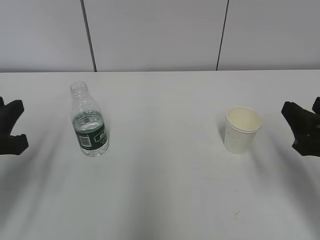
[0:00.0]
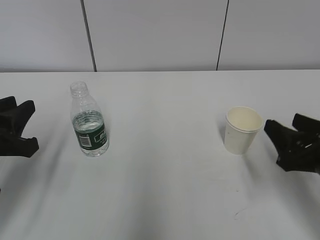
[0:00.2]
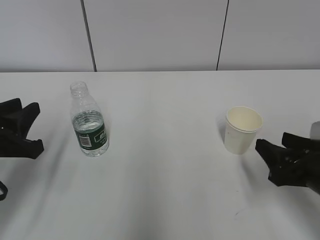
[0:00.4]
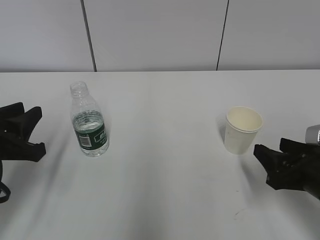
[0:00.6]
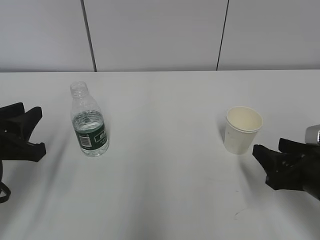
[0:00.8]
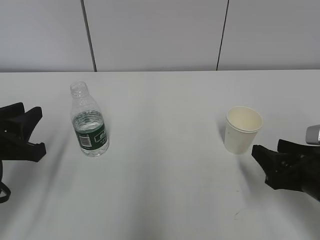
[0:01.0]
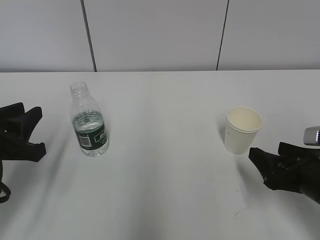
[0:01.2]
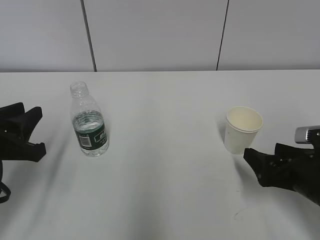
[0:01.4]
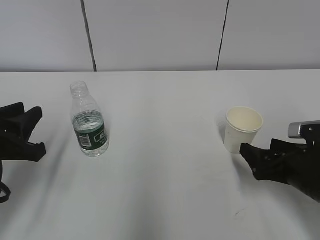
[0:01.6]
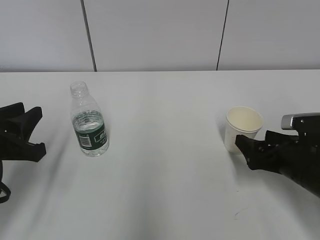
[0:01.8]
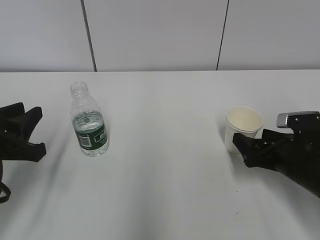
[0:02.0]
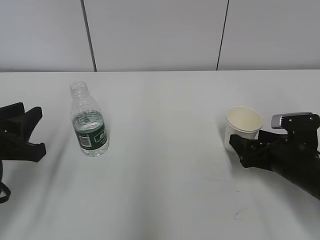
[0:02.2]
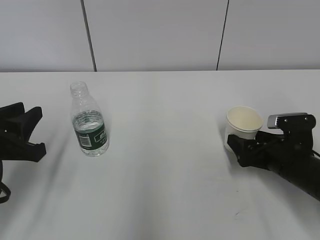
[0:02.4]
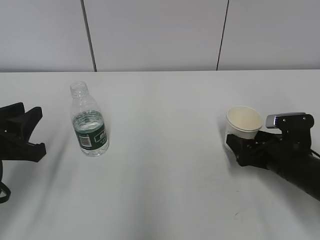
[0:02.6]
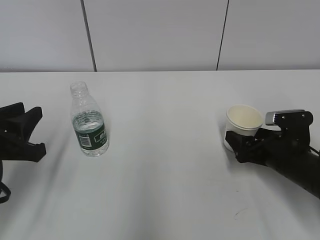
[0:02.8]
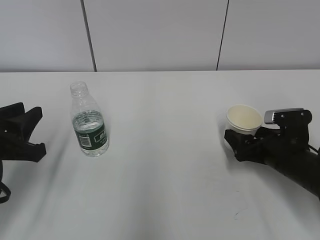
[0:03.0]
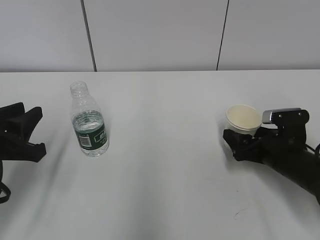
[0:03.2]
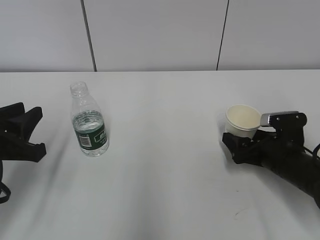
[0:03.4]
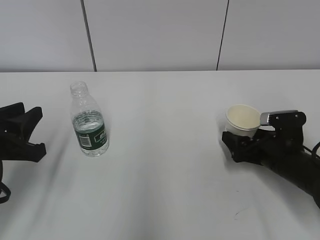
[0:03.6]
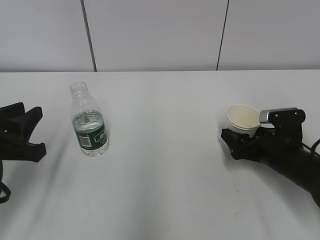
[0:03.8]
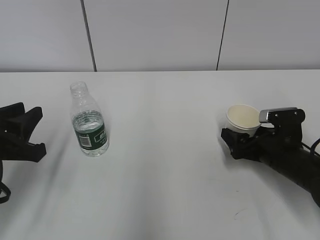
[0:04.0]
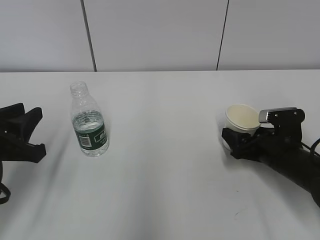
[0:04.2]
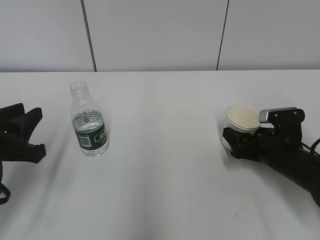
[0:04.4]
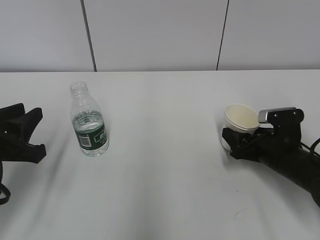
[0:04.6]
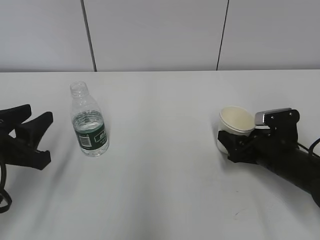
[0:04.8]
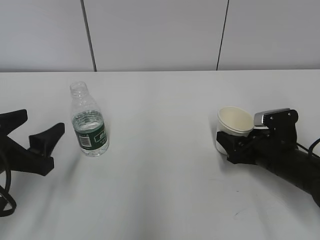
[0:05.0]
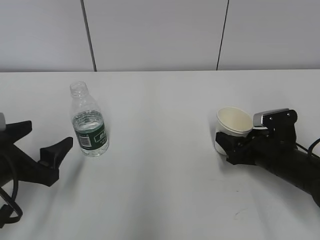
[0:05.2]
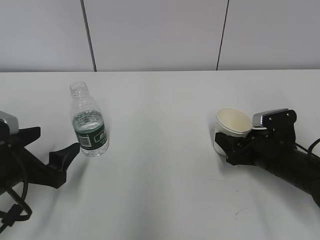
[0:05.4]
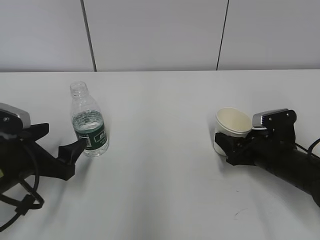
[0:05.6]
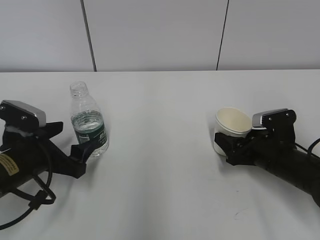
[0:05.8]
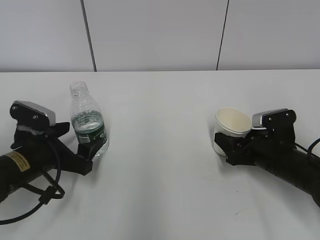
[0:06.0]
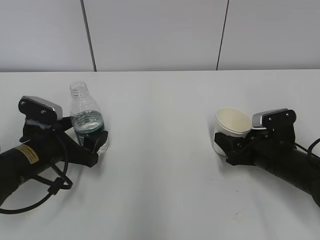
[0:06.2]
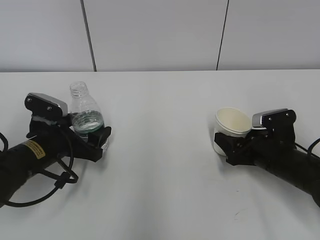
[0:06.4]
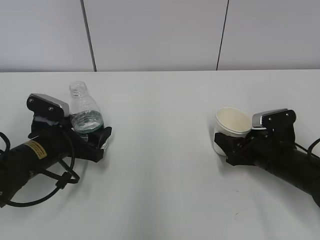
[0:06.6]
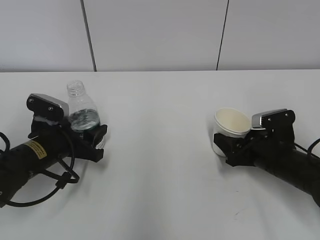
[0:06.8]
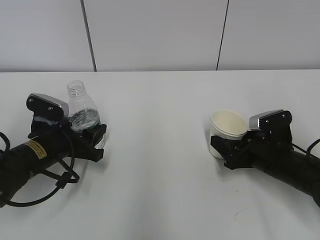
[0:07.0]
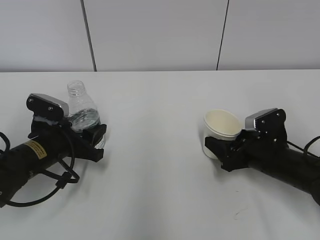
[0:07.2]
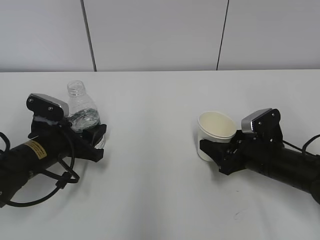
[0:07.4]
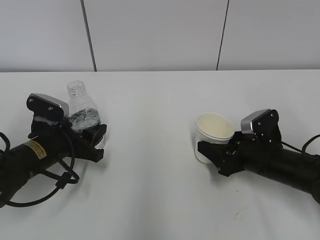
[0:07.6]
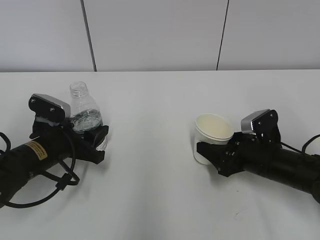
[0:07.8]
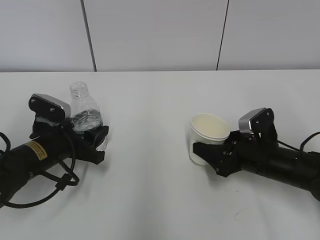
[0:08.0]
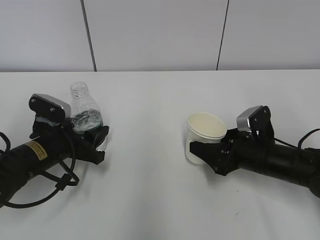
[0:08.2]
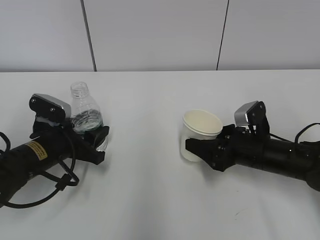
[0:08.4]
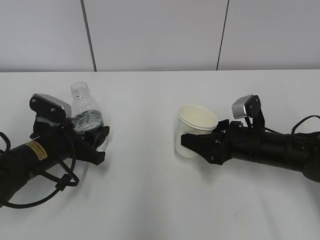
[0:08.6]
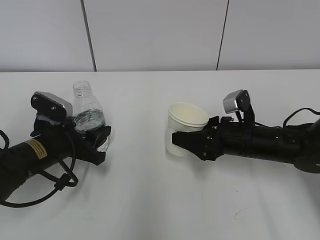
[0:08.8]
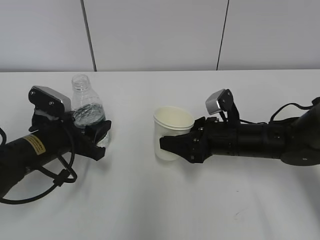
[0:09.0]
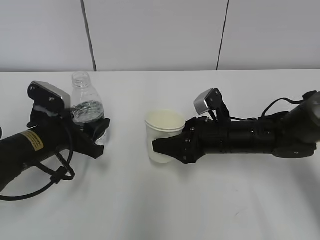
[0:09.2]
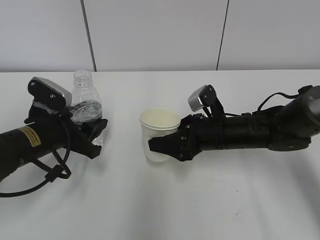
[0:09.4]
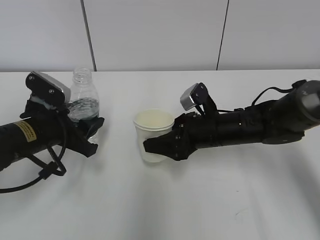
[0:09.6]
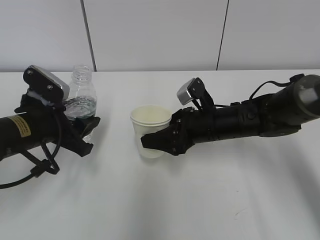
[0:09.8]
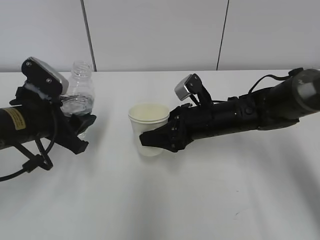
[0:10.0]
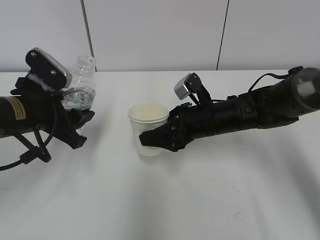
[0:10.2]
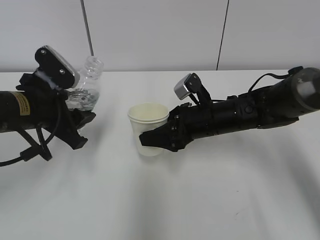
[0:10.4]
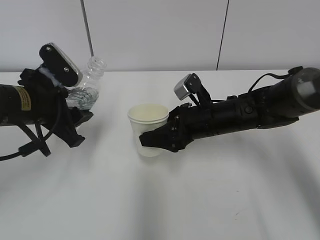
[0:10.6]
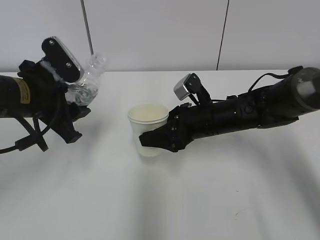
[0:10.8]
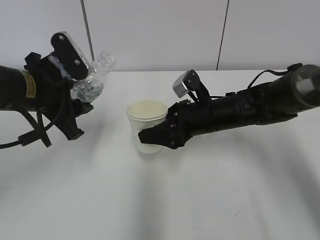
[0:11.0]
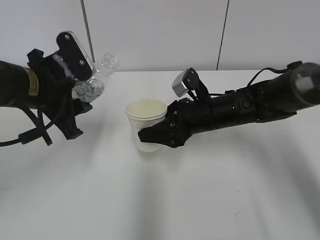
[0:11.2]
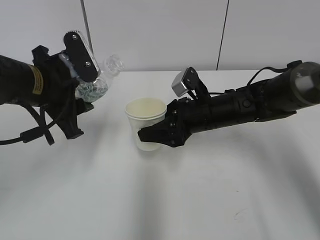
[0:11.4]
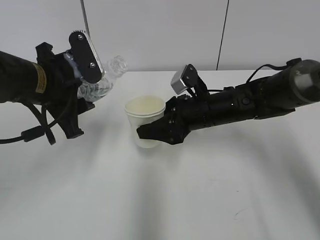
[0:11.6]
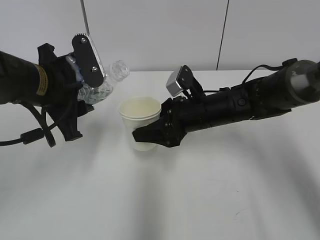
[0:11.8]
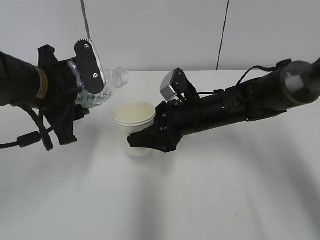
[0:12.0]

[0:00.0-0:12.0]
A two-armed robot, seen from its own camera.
Step, 0:00.0 to 0:05.2: Grab the paper cup with the right hand.
Step, 0:05.4 to 0:06.6: Grab the water bottle with the left hand.
Step, 0:06.8 to 0:10.4: Lift the paper cup with the right hand.
0:00.0 to 0:01.6: The right gripper travels downward by roughly 10 cm, and opens up.
0:01.6 to 0:03.0: The right gripper heads forward, covering approximately 5 cm.
0:03.0 to 0:04.4: The right gripper closes up.
0:04.4 to 0:06.0: The left gripper is displaced downward and forward by roughly 10 cm, and opens.
0:06.0 to 0:07.6: The left gripper closes up.
0:07.6 to 0:09.0: The right gripper is displaced to the left by about 5 cm.
0:09.0 to 0:10.4: The right gripper shifts by roughly 5 cm. Meanwhile the left gripper goes roughly 10 cm upward.
0:10.4 to 0:12.0: The left gripper ends up roughly 5 cm from where it was.

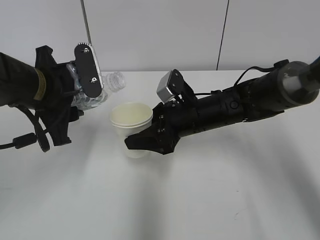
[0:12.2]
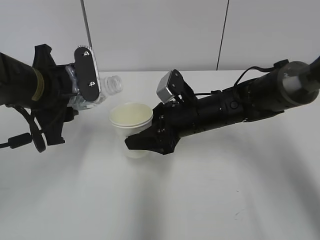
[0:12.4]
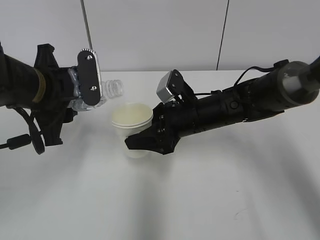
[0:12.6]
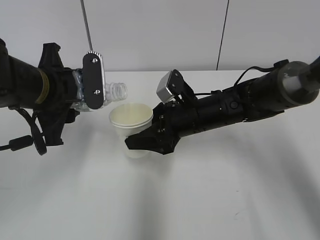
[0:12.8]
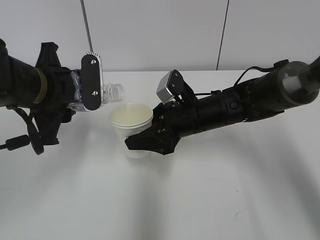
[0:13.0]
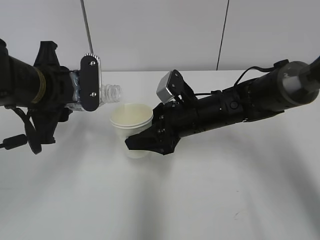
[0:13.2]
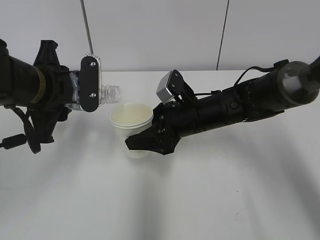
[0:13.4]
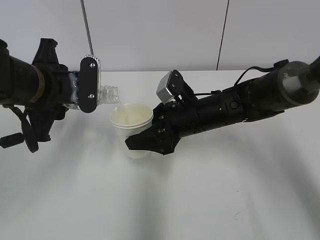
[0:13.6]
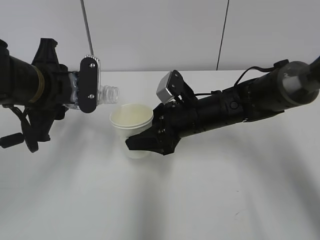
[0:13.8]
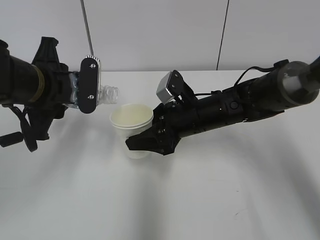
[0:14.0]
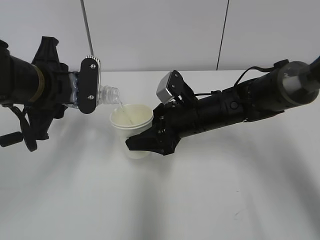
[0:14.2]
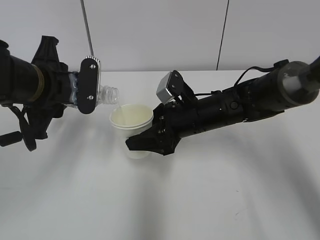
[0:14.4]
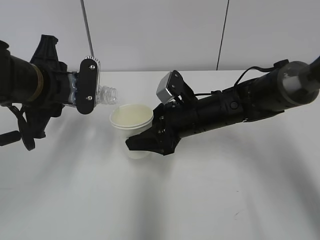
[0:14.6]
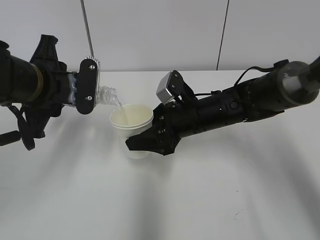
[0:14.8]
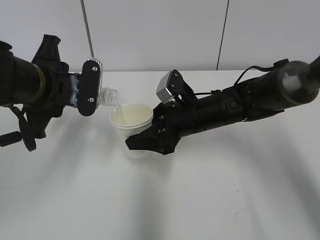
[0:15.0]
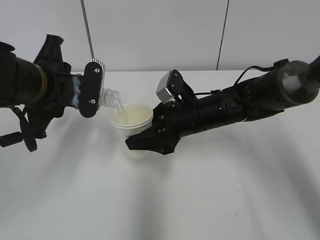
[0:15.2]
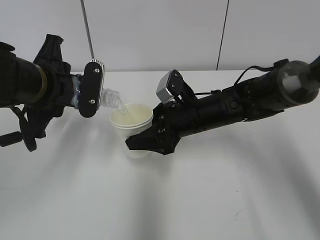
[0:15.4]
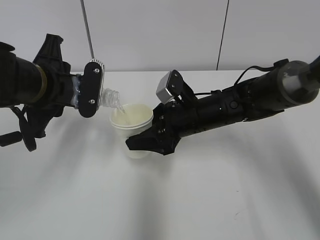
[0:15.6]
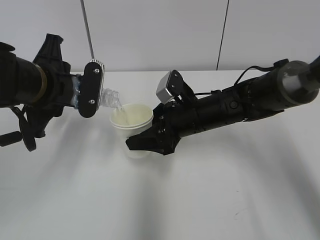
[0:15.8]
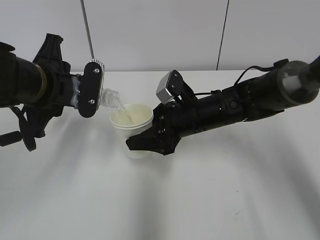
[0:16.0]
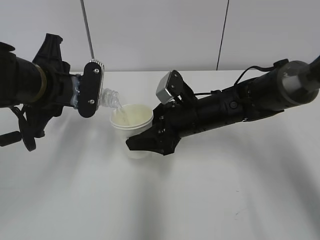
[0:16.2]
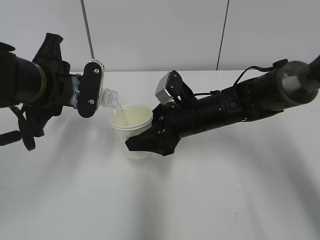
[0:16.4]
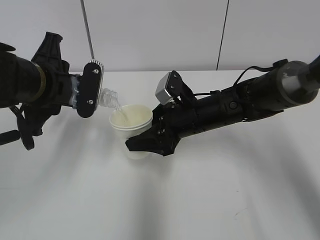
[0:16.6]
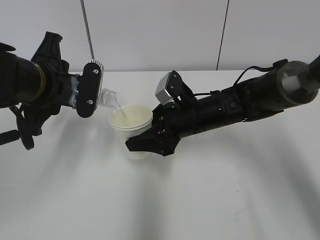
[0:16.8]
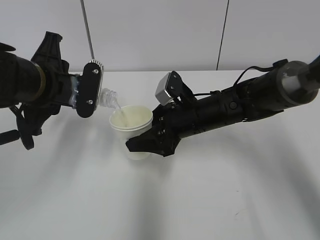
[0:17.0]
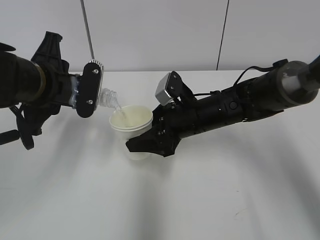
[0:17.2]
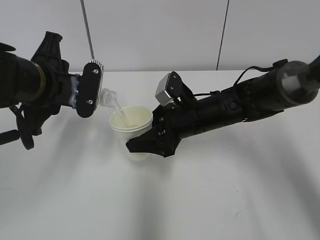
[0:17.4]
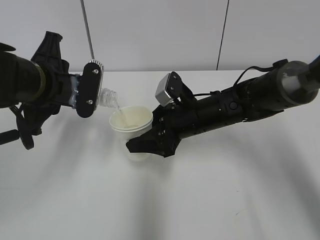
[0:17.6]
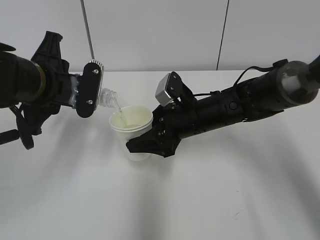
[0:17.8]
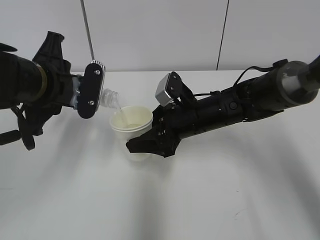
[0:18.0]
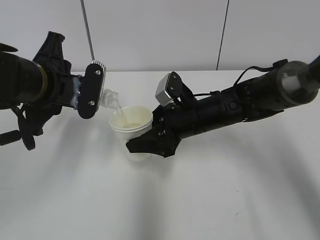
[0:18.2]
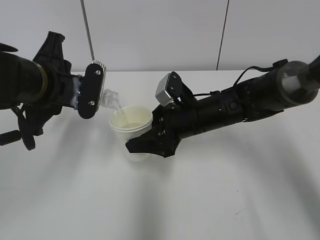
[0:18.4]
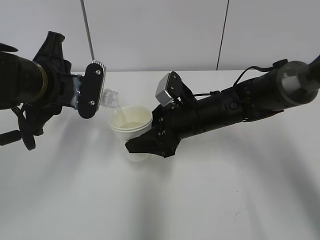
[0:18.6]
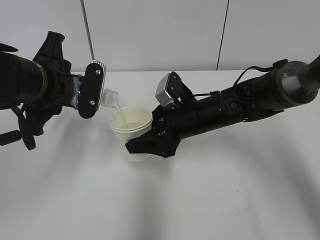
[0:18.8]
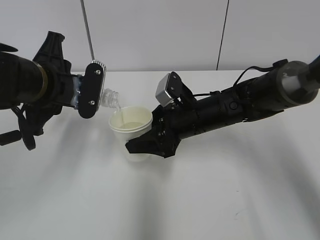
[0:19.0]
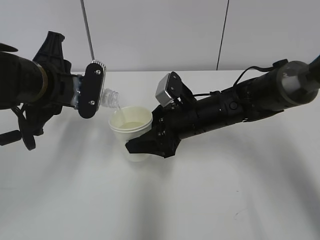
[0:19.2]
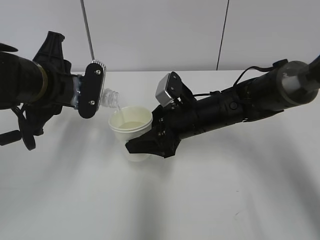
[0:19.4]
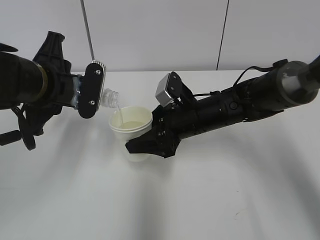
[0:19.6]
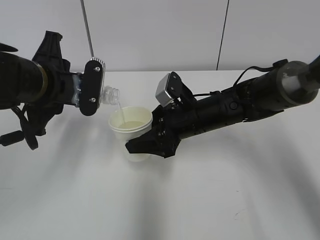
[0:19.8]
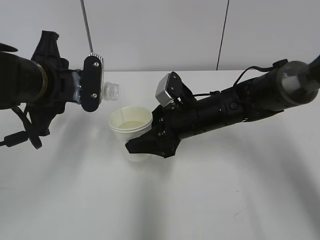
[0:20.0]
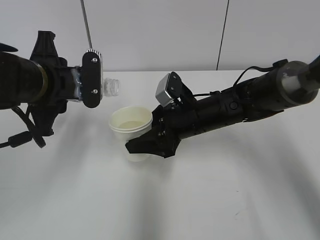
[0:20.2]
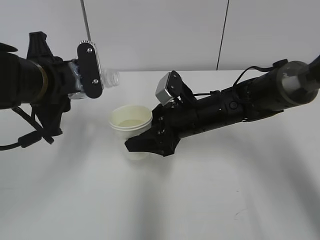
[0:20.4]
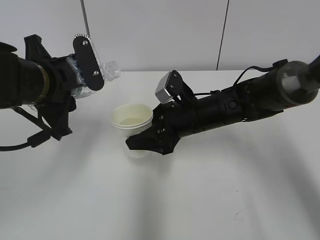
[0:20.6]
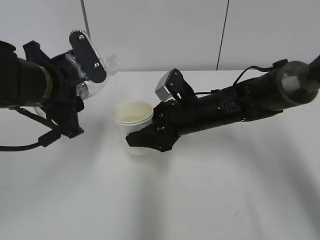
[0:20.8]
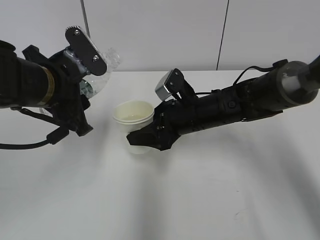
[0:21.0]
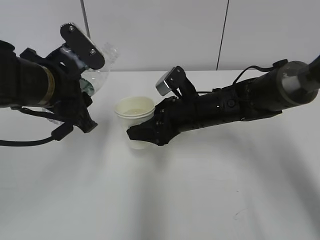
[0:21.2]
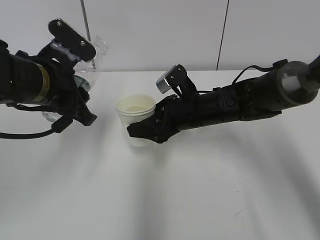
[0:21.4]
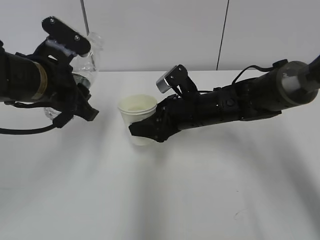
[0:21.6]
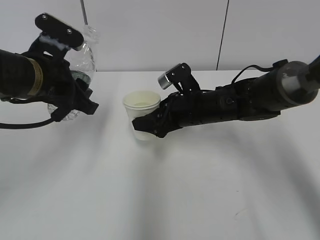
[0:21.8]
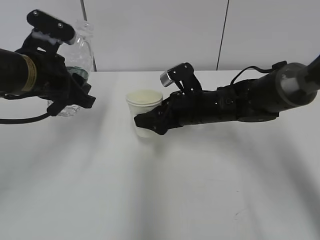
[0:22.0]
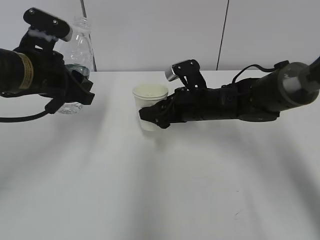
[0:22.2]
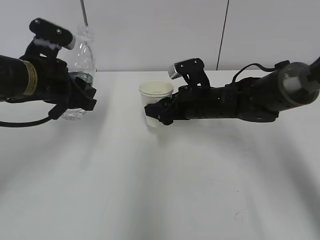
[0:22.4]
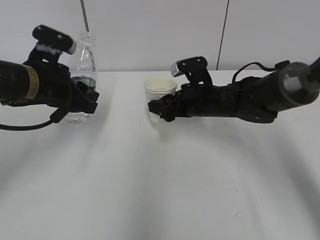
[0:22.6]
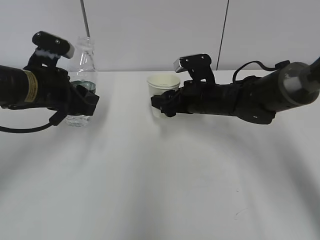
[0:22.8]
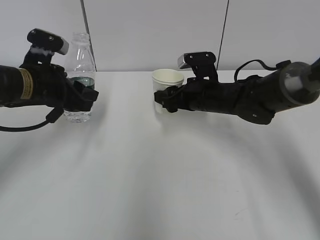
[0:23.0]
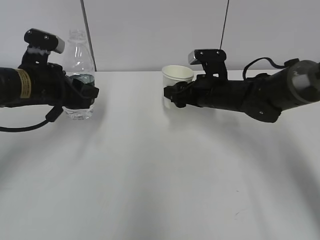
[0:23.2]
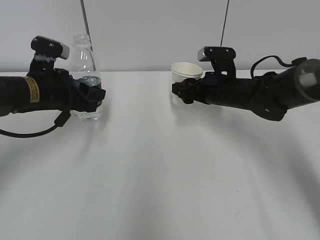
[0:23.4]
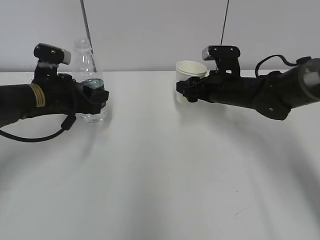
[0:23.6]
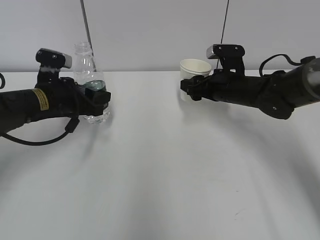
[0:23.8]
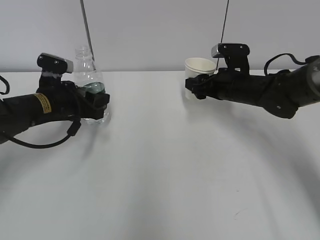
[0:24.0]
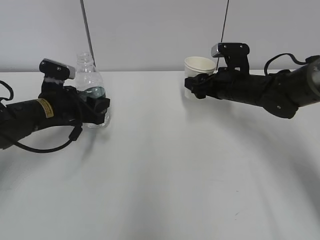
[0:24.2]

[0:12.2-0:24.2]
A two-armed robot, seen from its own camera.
Step, 0:12.2 to 0:16.0: Pour water with the left hand.
Step, 0:16.2 to 0:18.2: Collect water with the left hand.
Step, 0:18.4 to 0:22.4: Place the water bottle with the left hand.
Step, 0:22.6 to 0:23.0: Place the paper cup with the right hand.
0:13.8 to 0:15.2: The grippers make only small movements.
0:15.2 to 0:19.8: Both grippers stay put.
0:21.2 to 0:22.6: The left gripper ends up roughly 5 cm from where it was.
0:22.6 to 0:24.2: The right gripper goes approximately 5 cm to the right; the left gripper is displaced downward by about 10 cm.
